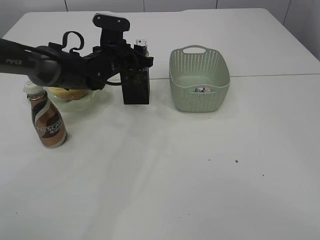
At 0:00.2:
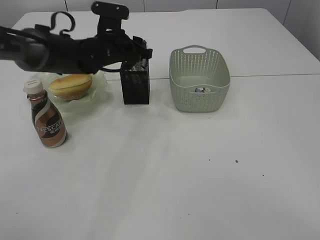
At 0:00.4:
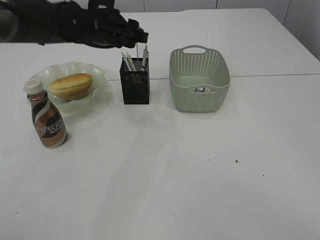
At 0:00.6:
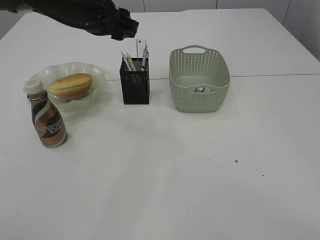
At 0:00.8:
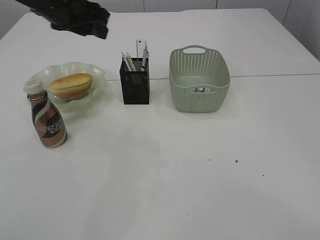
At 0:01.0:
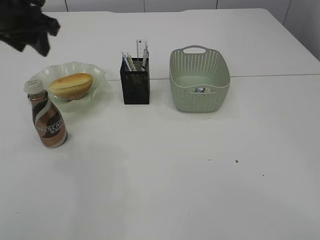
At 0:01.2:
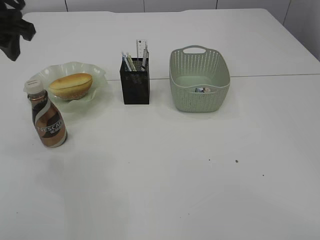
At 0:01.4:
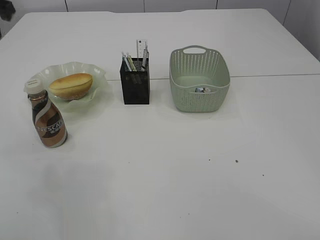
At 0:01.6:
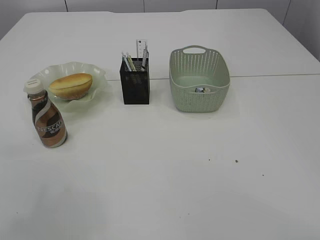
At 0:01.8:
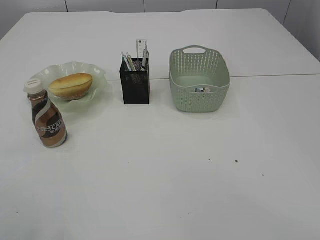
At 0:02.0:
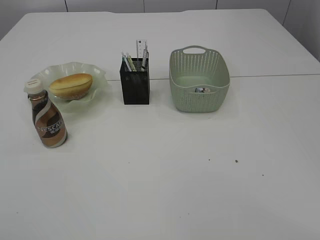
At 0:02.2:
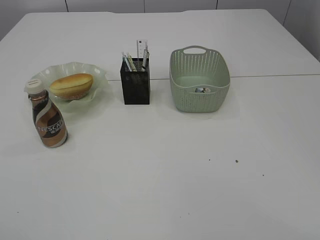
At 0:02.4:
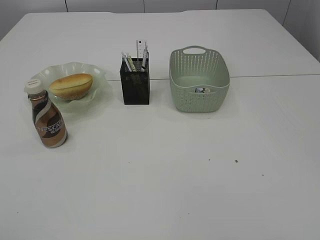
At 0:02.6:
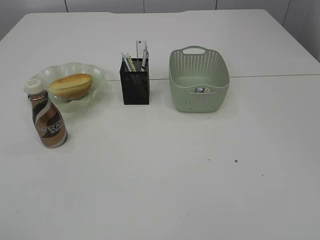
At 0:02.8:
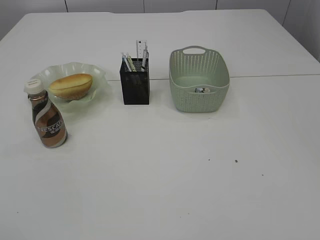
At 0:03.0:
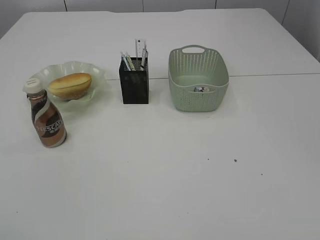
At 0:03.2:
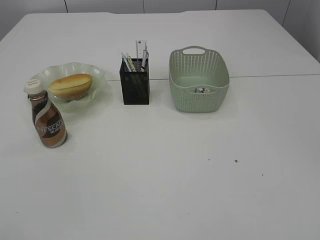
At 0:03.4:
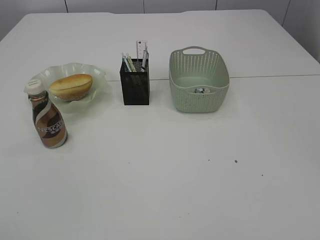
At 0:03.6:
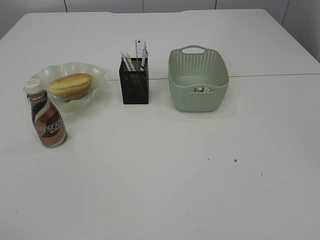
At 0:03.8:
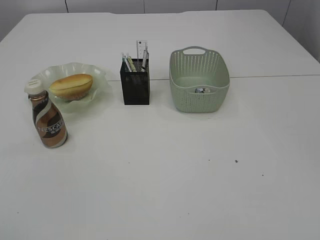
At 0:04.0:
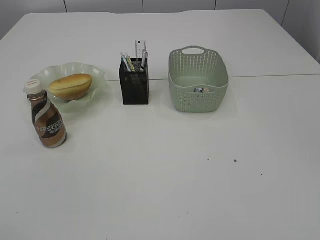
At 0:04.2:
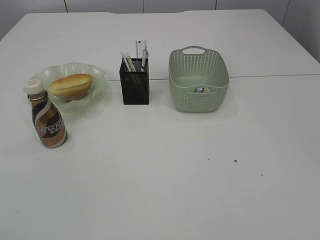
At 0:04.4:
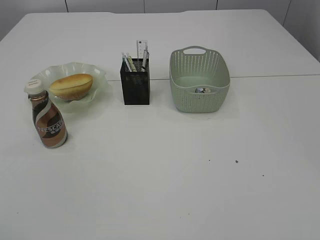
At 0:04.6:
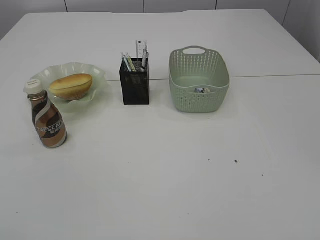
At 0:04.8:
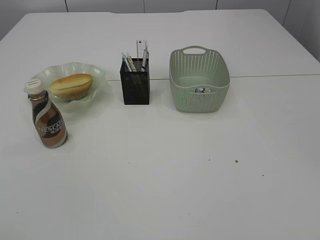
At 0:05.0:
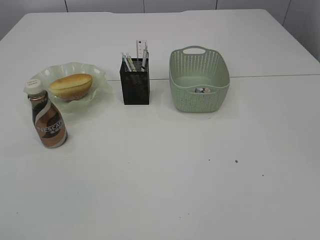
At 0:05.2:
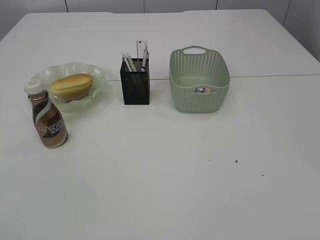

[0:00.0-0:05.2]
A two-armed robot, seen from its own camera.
0:00.0 to 0:01.8: The left gripper goes roughly 40 cm upward, backward and to the left.
0:01.8 to 0:03.4: The right gripper moves downward and backward, about 15 cm. The left gripper travels backward and downward by some 25 cm.

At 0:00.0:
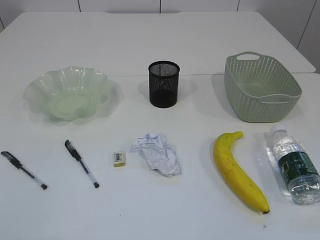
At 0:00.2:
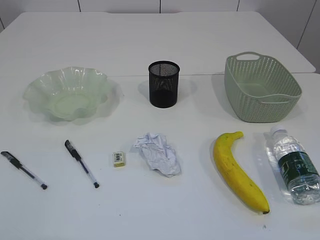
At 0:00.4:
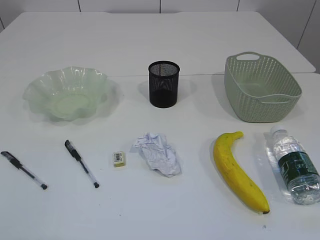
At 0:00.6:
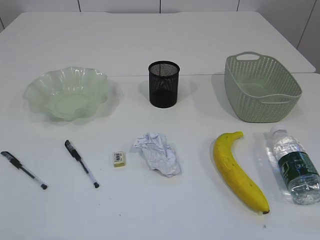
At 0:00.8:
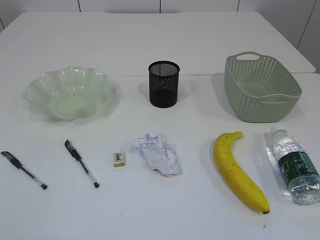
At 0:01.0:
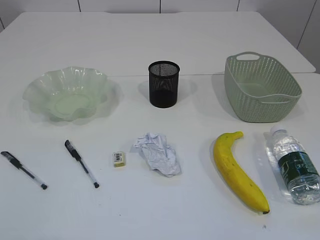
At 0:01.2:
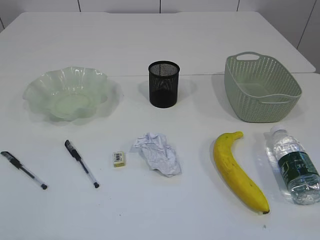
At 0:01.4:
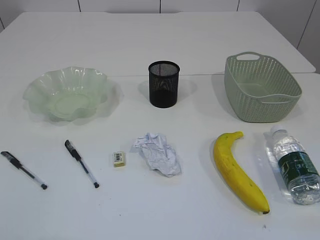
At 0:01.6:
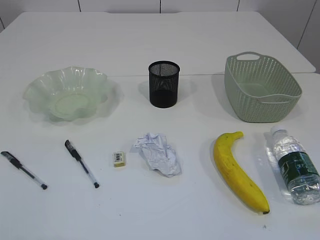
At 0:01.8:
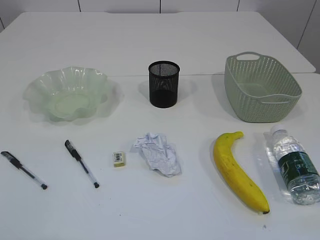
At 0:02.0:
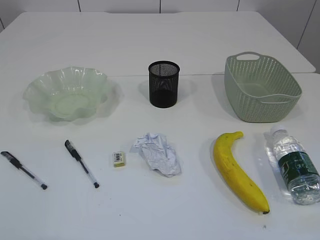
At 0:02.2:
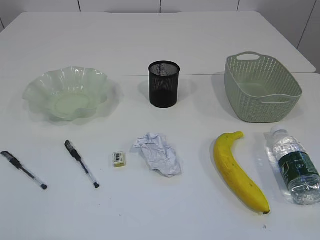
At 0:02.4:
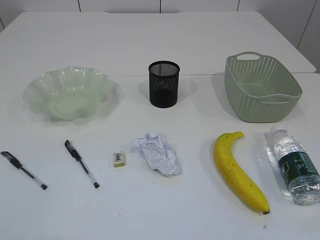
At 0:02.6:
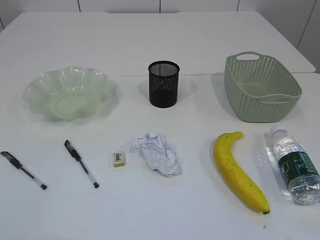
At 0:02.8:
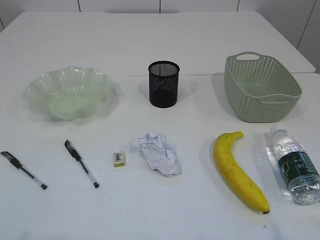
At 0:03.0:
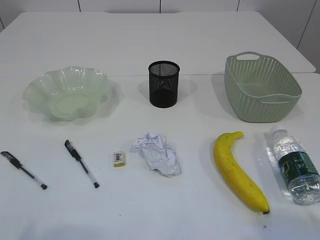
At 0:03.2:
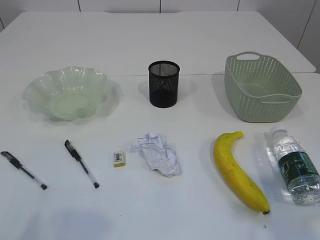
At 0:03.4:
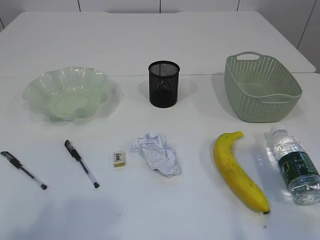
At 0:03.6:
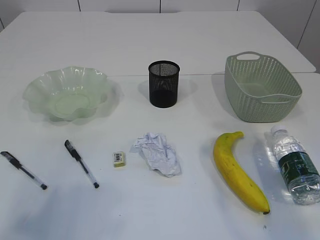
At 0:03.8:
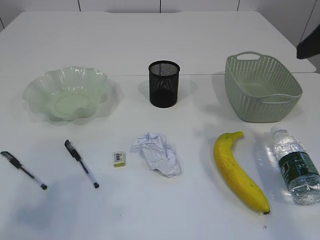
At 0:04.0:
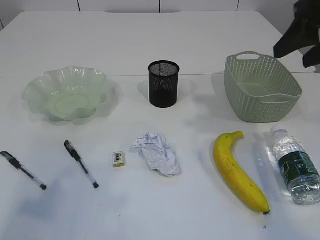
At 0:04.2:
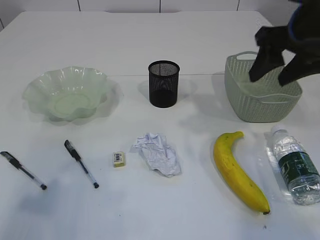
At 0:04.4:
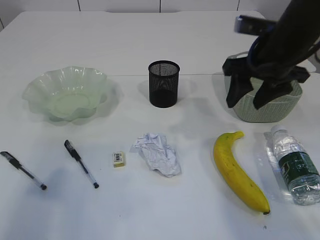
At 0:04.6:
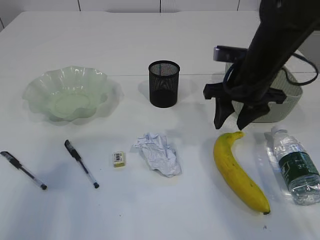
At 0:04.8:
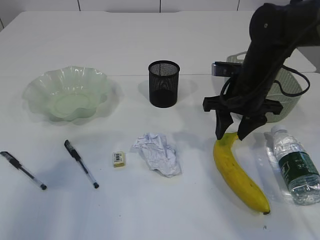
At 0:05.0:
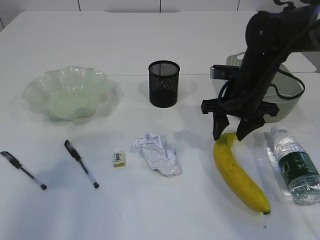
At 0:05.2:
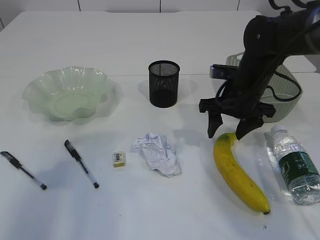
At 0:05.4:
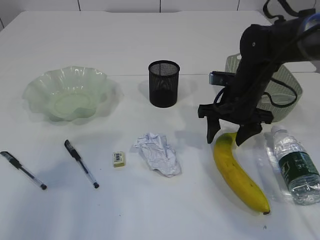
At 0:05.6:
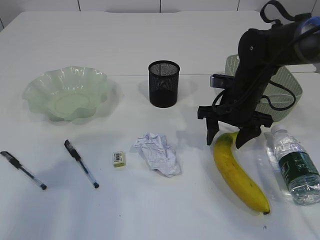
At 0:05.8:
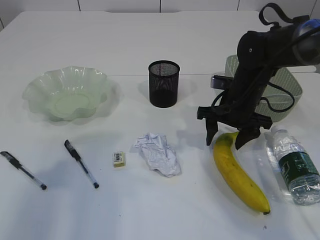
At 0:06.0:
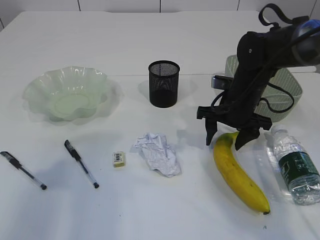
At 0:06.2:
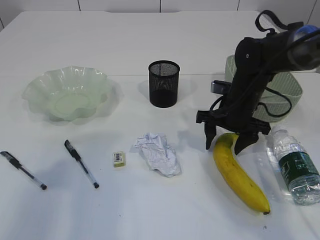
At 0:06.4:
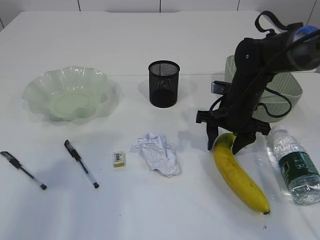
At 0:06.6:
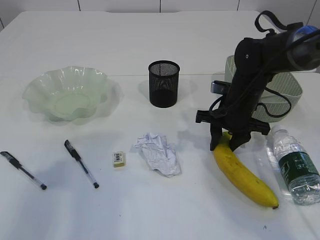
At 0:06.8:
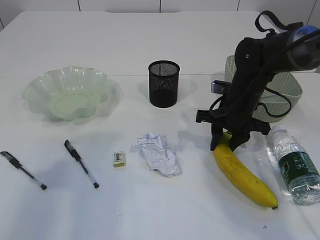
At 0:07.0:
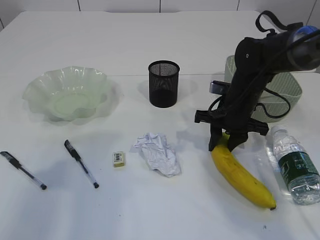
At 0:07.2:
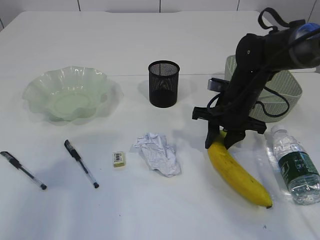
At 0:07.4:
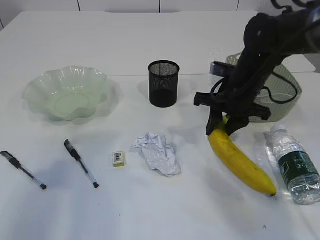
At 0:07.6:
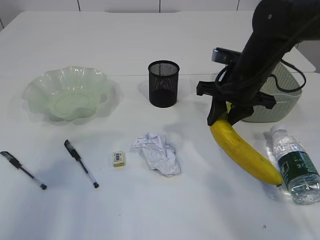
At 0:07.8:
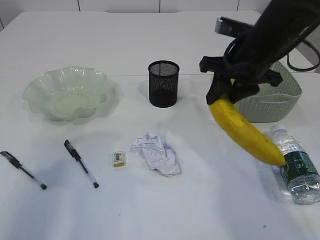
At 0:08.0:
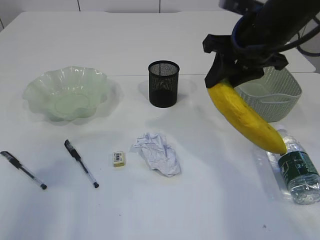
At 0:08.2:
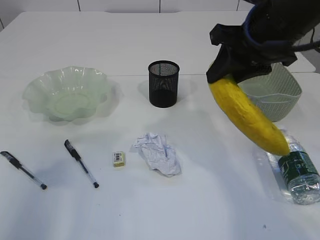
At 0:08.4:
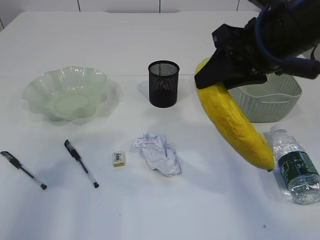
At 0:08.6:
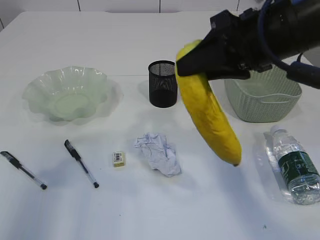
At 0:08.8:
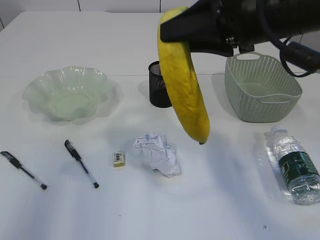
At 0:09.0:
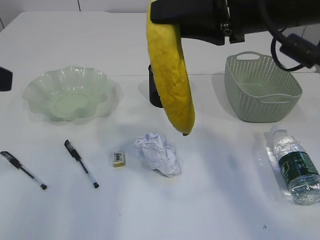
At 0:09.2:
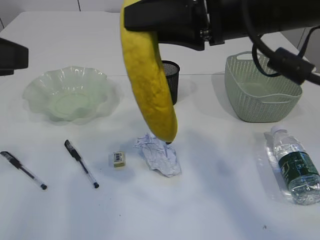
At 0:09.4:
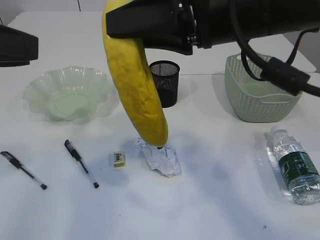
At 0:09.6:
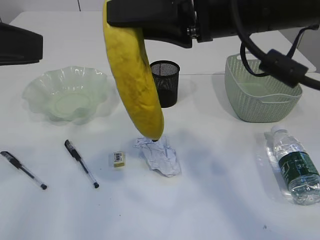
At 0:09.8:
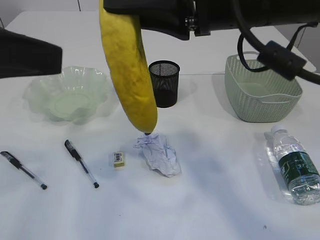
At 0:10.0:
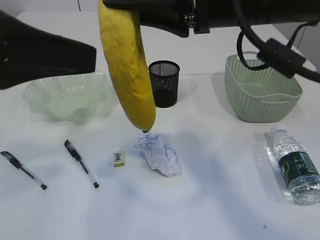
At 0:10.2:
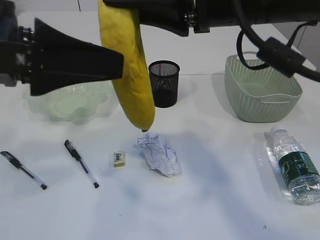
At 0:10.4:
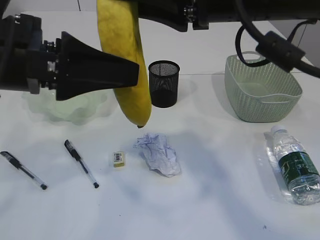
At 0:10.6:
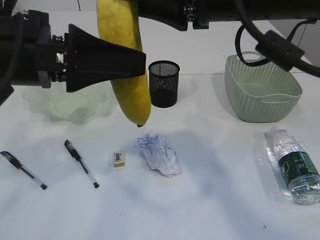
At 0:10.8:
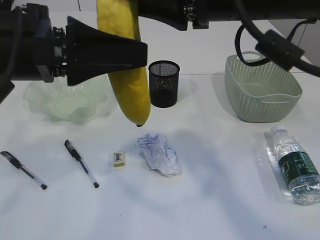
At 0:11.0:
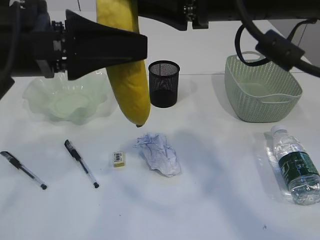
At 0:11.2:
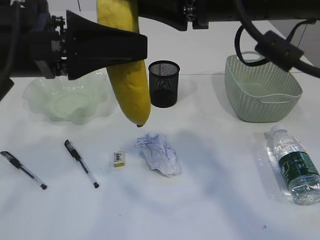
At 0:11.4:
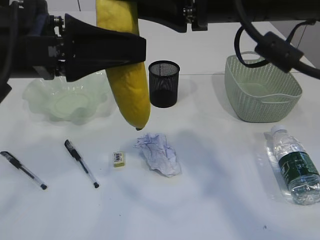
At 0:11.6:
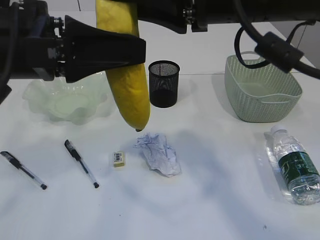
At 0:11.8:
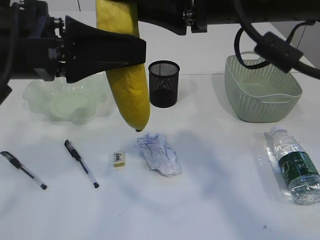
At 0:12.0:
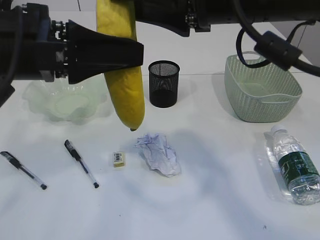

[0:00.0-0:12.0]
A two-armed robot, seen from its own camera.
0:03.0 to 0:04.4: The right gripper travels forward by roughly 30 cm. The left gripper is displaced forward by some 15 cm.
0:04.4 to 0:06.0: The right gripper goes about 15 cm downward.
0:06.0 to 0:07.6: The right gripper is displaced upward by roughly 5 cm, and closes its fingers.
0:07.6 to 0:09.0: The right gripper travels upward and backward by roughly 20 cm.
0:09.0 to 0:10.4: The left gripper heads to the right, covering some 10 cm.
0:10.4 to 0:12.0: The left gripper closes its fingers.

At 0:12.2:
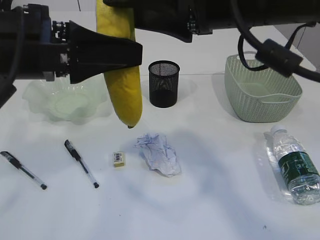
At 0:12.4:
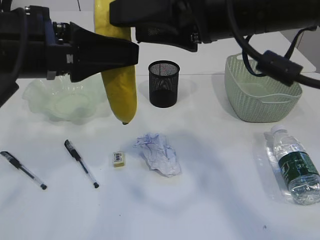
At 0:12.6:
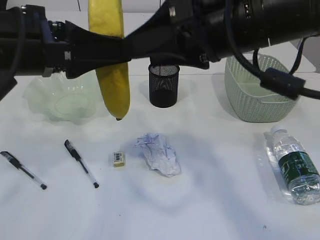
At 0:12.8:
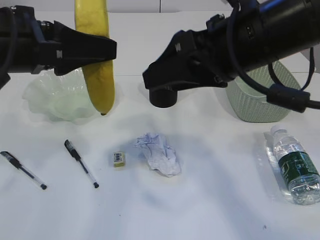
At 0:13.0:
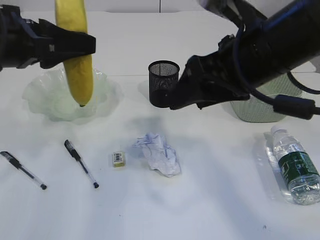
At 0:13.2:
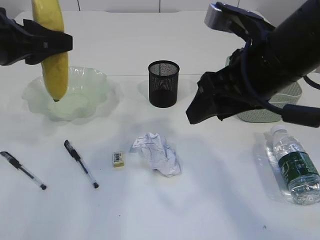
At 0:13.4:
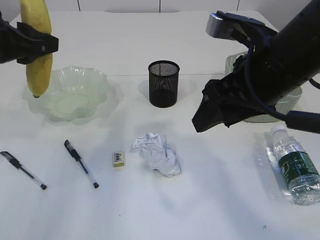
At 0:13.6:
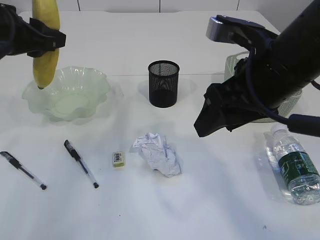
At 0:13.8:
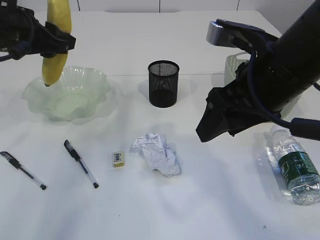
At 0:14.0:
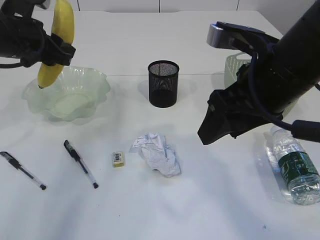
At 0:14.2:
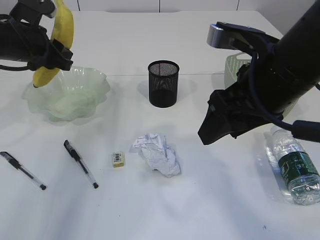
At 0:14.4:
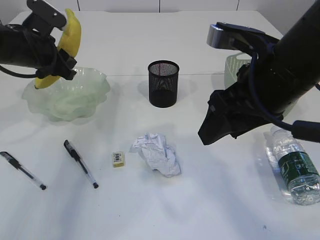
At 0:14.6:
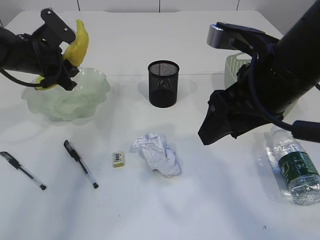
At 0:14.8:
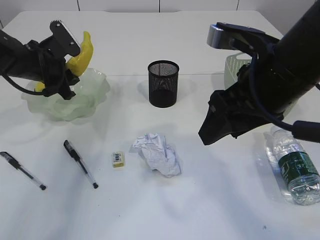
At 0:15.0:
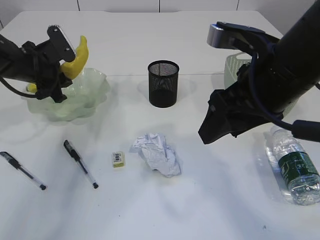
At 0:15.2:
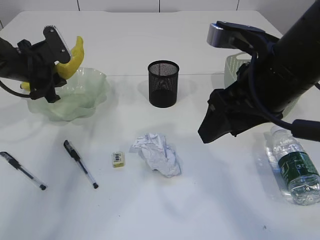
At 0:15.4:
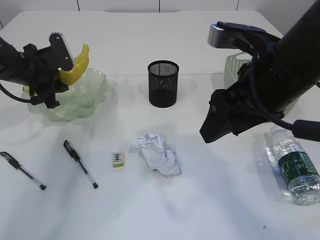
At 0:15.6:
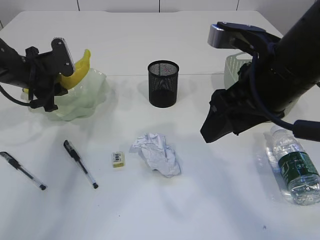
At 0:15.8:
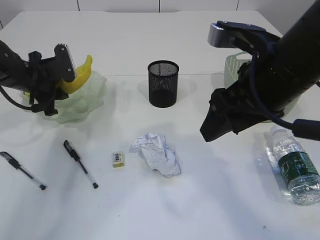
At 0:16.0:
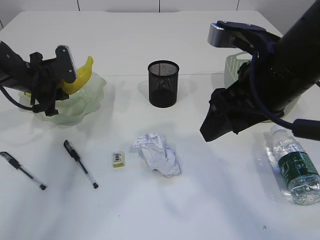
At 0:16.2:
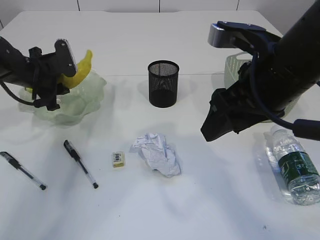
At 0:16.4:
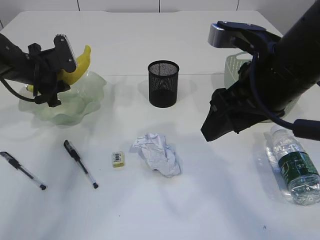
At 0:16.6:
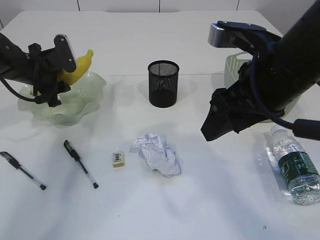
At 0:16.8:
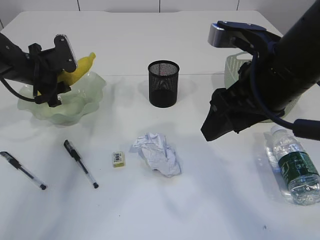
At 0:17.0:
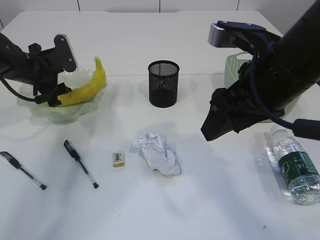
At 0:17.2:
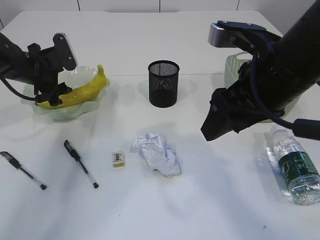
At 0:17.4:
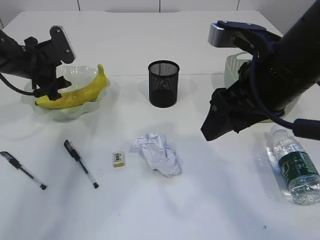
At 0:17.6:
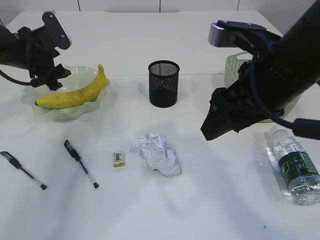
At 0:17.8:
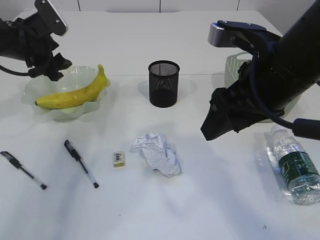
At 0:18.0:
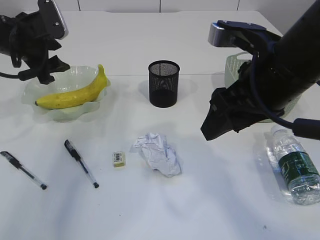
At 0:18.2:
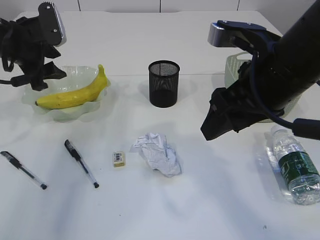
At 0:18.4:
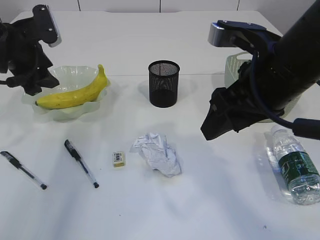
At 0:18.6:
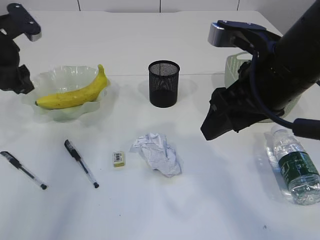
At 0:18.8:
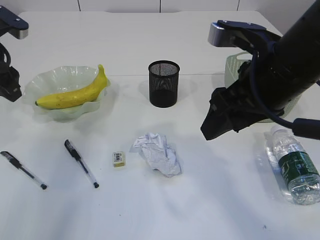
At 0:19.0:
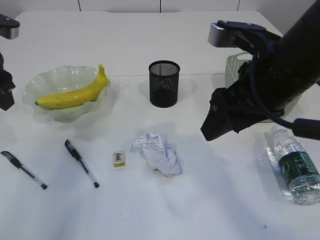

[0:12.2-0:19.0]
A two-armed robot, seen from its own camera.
Step, 0:12.8 to 0:17.8: Place the banana in the plate.
0:12.2 to 0:13.6: The right gripper travels downward by approximately 5 cm. Meanwhile the left gripper moves forward and to the left, about 10 cm.
0:13.6 to 0:15.0: The left gripper goes about 15 cm forward and downward.
0:15.0 to 0:17.6: The grippers make only small movements.
0:17.6 to 0:19.0: The left gripper shifts about 15 cm backward and upward.
